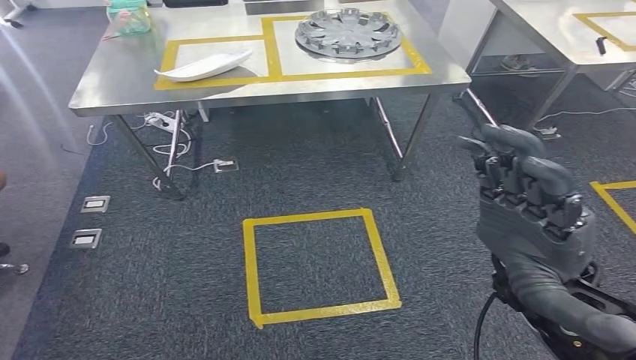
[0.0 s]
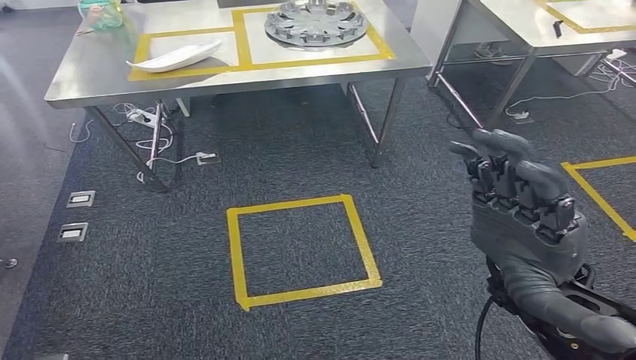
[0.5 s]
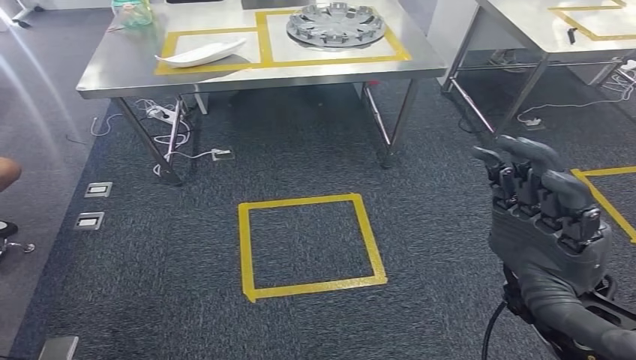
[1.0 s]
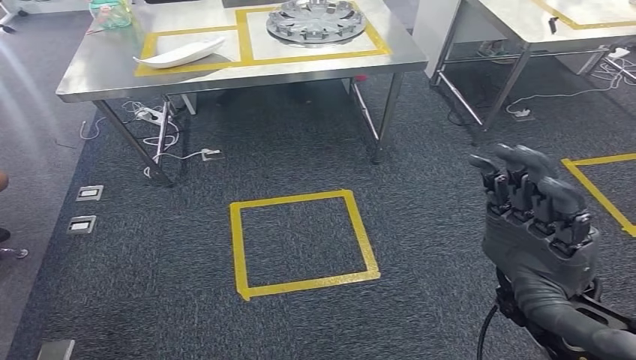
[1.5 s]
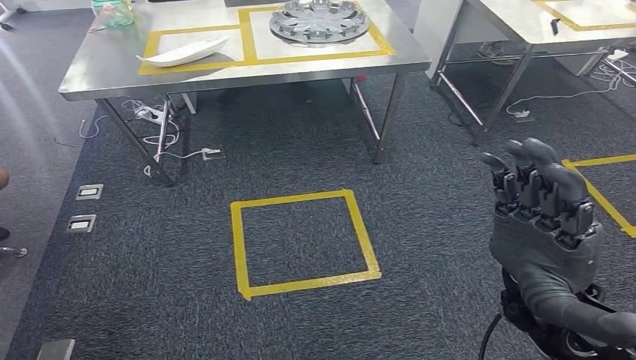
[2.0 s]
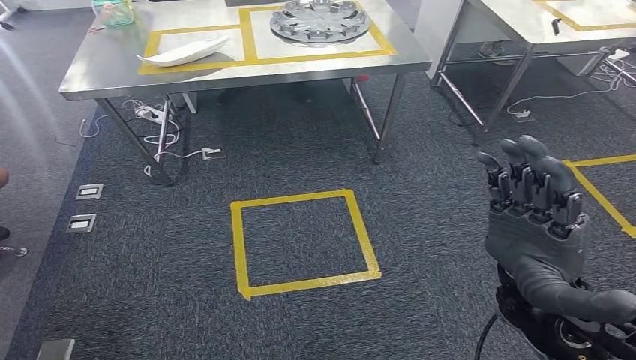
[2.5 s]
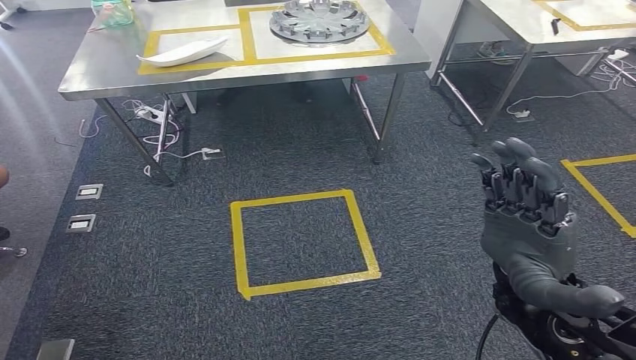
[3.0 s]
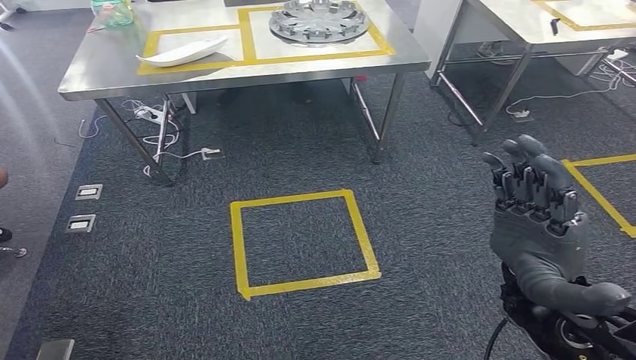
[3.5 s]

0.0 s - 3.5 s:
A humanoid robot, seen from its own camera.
Step, 0.0 s - 3.5 s: Move to the initial position at the workbench.
2.0 s - 3.5 s: The hands make only small movements.
